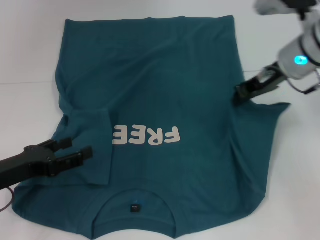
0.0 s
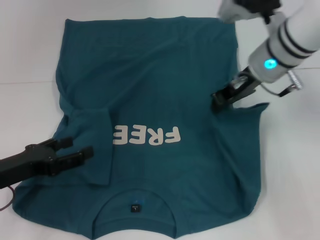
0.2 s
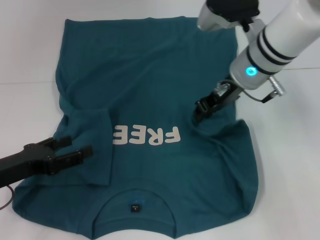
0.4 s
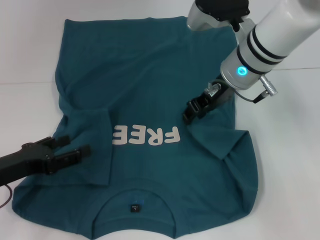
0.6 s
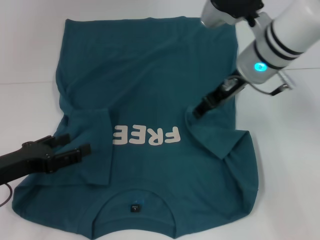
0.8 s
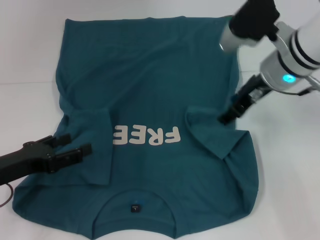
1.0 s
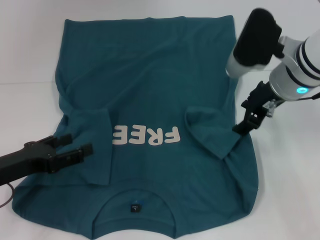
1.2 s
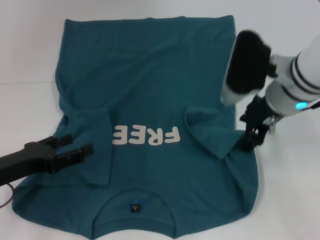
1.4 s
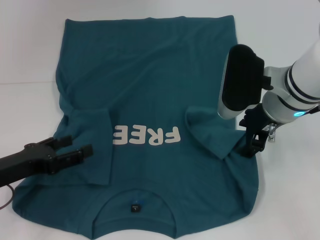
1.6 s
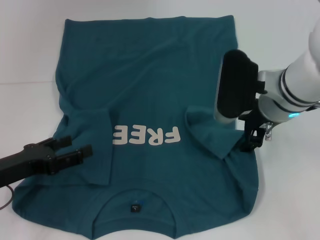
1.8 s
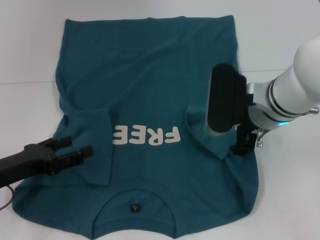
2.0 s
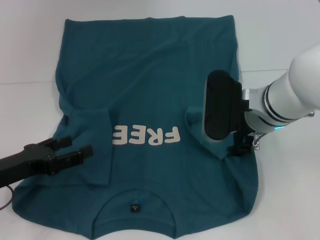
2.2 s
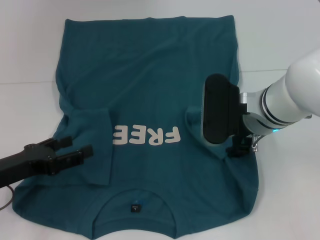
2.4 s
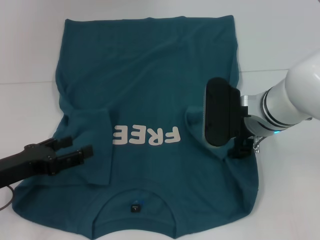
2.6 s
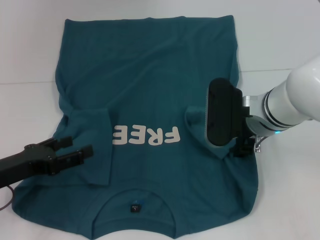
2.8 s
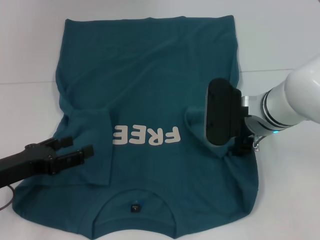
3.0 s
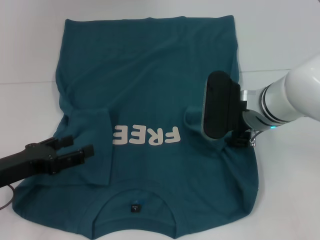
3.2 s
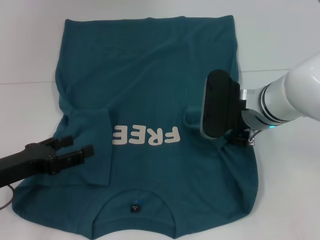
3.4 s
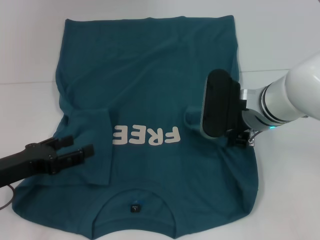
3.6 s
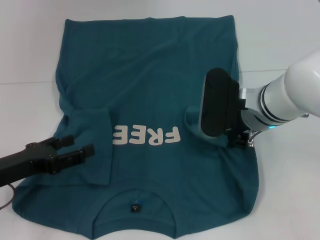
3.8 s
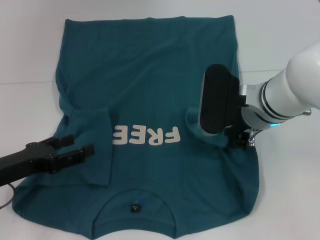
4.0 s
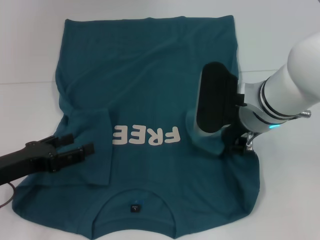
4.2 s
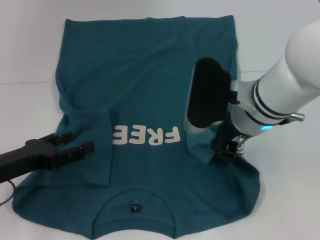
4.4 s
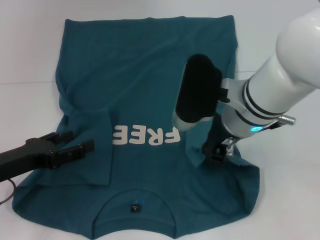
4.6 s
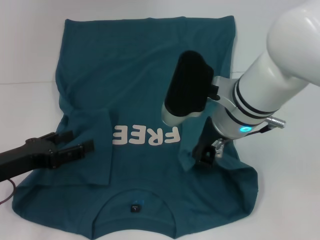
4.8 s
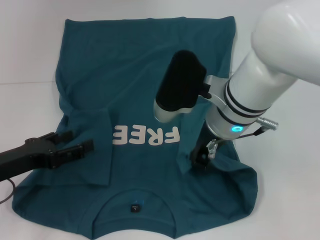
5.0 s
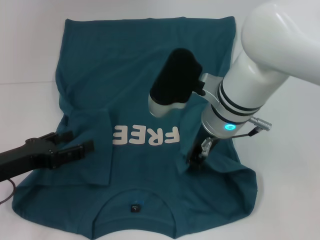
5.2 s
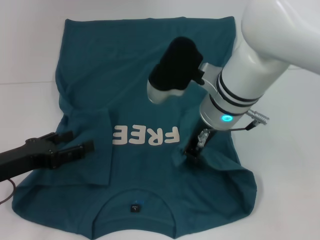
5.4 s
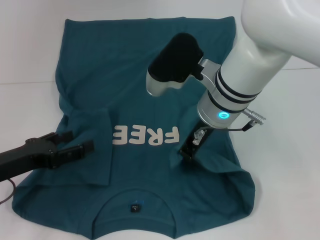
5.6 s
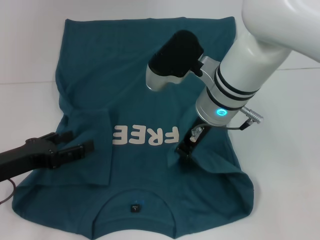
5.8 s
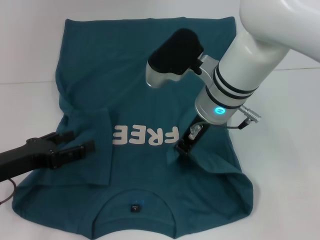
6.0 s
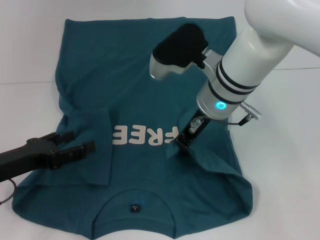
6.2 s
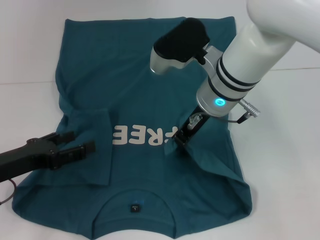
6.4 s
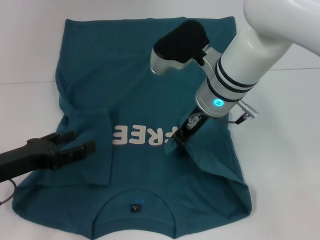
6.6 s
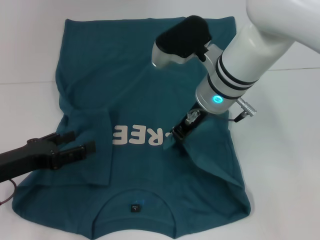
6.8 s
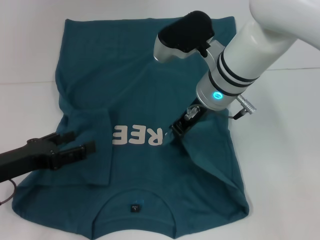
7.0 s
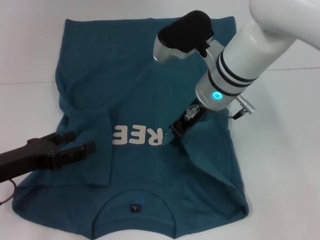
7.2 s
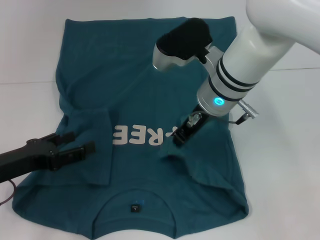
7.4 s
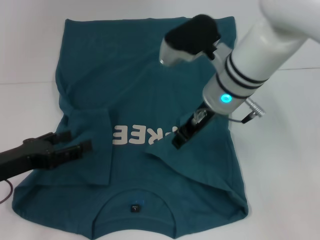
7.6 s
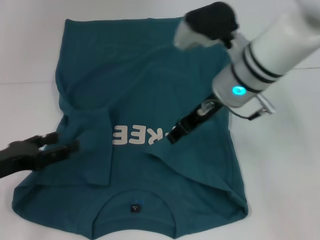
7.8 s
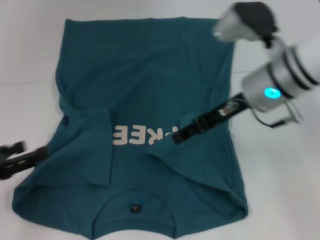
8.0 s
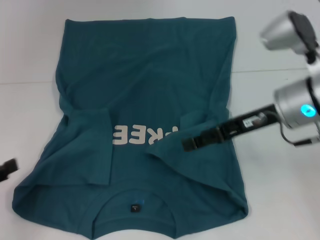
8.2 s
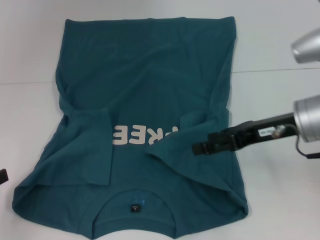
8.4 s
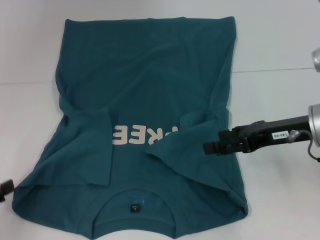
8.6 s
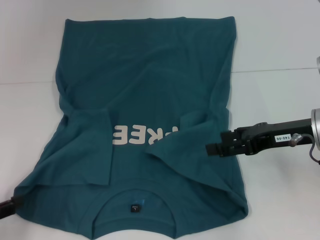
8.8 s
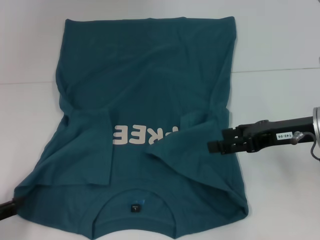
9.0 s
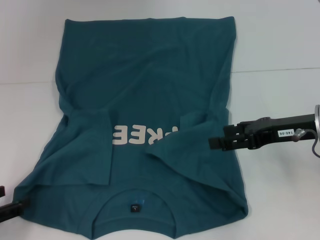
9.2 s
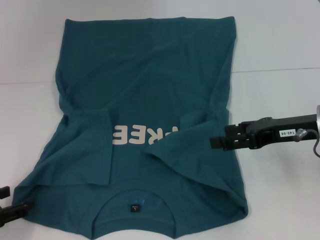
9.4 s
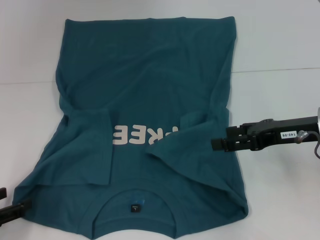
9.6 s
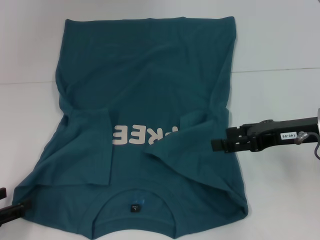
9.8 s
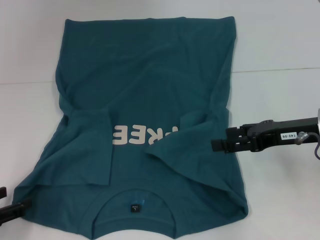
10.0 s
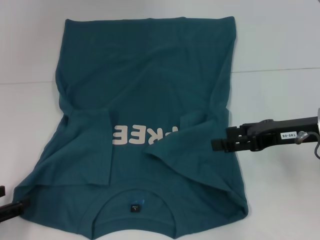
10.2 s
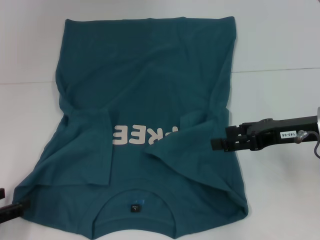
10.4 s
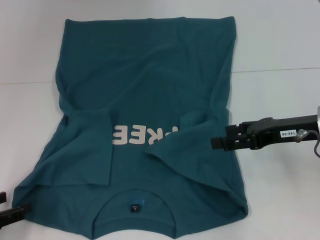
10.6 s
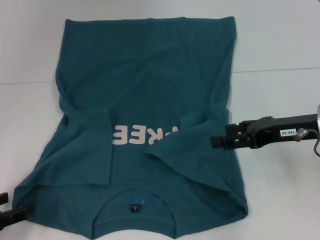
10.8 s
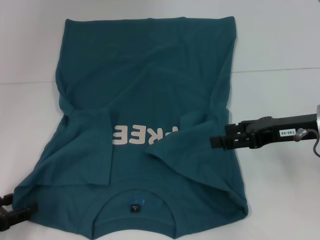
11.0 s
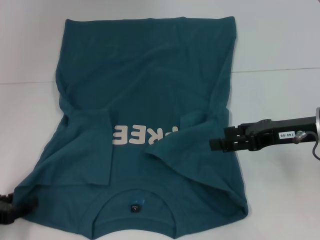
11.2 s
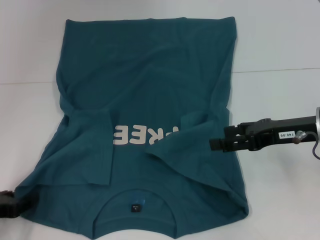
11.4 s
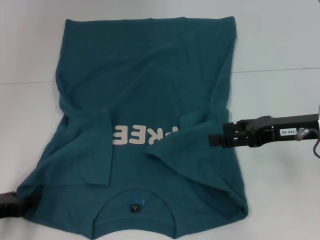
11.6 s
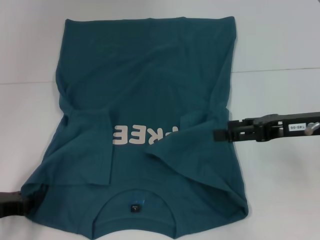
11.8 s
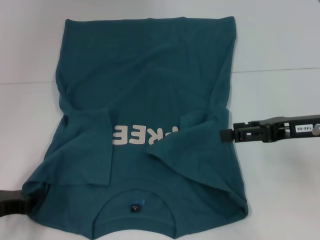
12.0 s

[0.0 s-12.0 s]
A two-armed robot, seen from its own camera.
Step, 0.0 to 7.6 s: Fold the bottom right sleeve to the right.
0.0 to 1.6 s: The right gripper moves backward and to the left, some 10 cm, and opens its fingers.
1.6 to 3.0 s: The grippers stay close to where they were, moving slightly.
3.0 to 4.4 s: The right gripper shifts by about 5 cm, and closes.
4.4 to 6.0 s: The right gripper shifts by approximately 5 cm.
6.0 to 7.6 s: The grippers make only small movements.
7.6 to 9.0 s: The left gripper is displaced backward and to the left by about 10 cm. The right gripper heads to the right and backward, covering roughly 15 cm, and opens up.
9.0 to 10.4 s: There are only small adjustments of the grippers.
10.4 to 12.0 s: The left gripper ends up approximately 5 cm from where it was, and closes up.

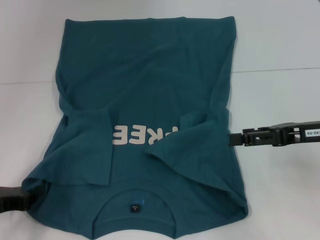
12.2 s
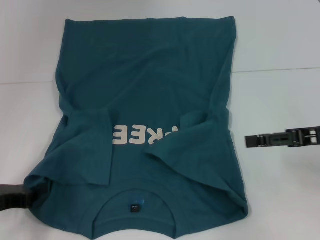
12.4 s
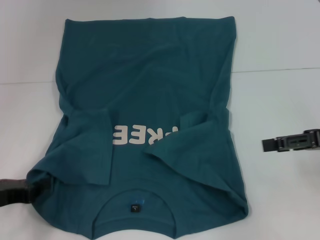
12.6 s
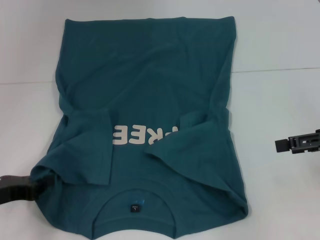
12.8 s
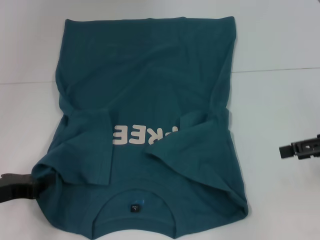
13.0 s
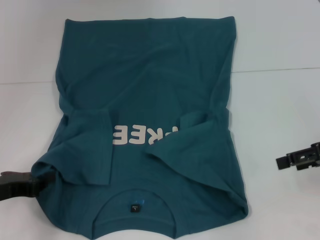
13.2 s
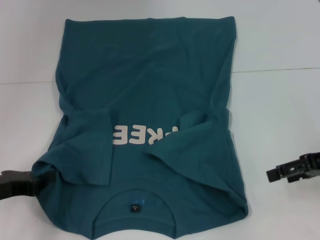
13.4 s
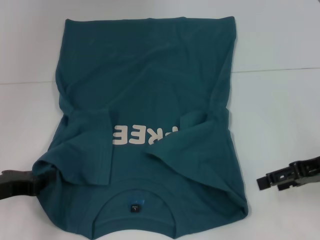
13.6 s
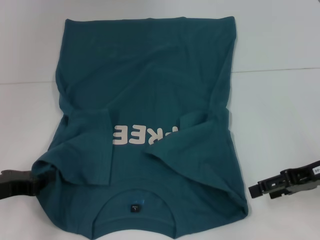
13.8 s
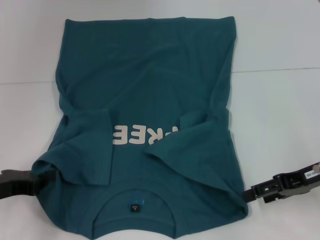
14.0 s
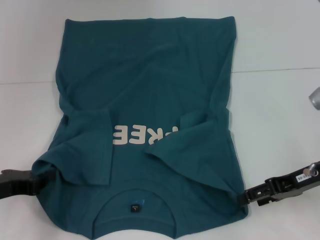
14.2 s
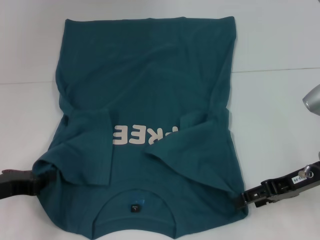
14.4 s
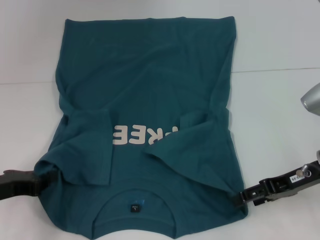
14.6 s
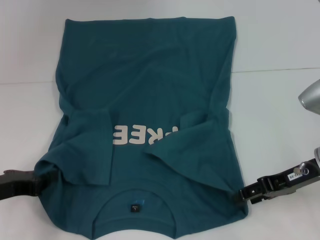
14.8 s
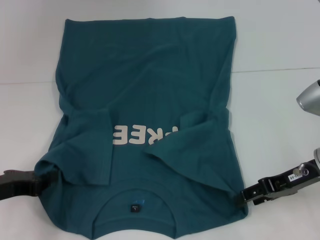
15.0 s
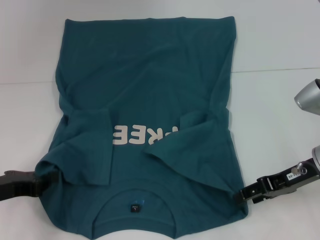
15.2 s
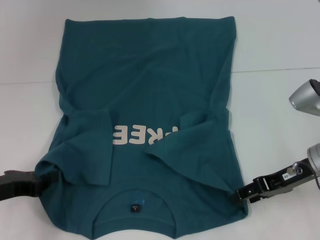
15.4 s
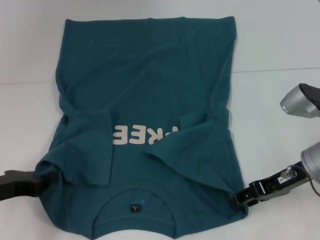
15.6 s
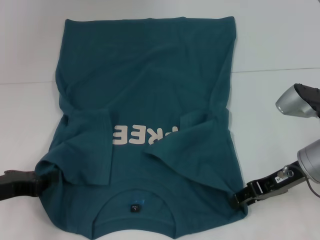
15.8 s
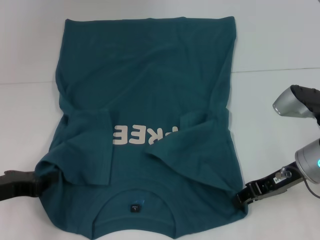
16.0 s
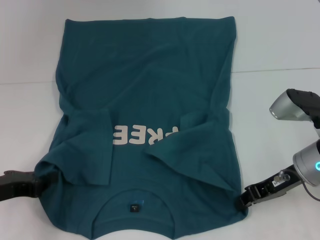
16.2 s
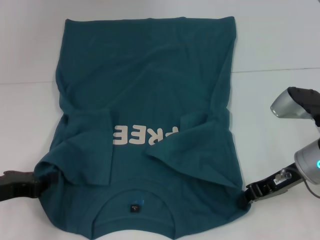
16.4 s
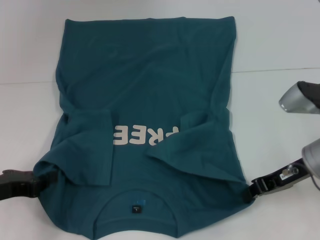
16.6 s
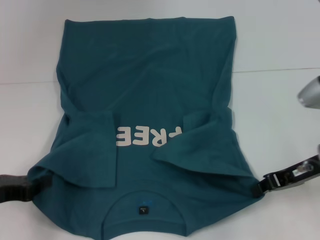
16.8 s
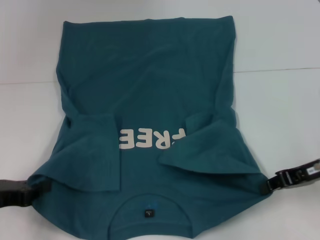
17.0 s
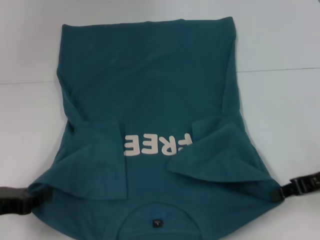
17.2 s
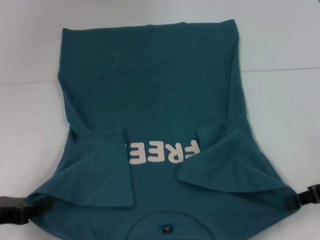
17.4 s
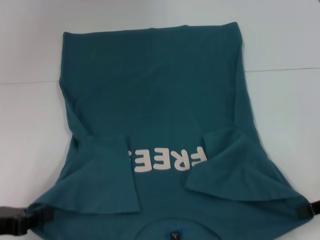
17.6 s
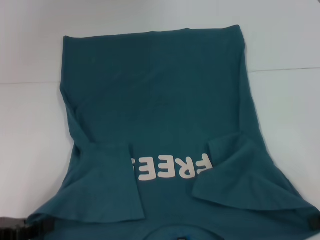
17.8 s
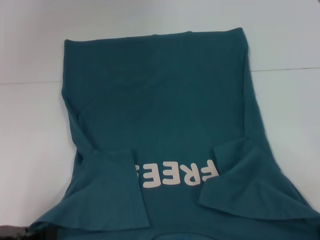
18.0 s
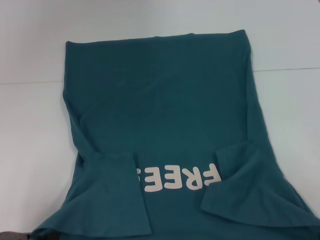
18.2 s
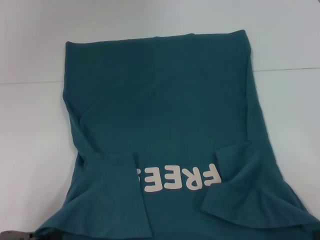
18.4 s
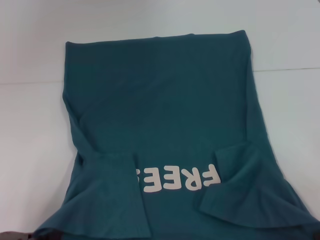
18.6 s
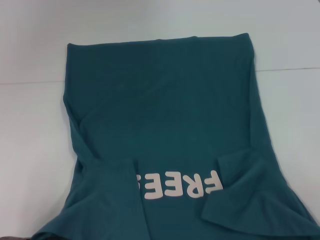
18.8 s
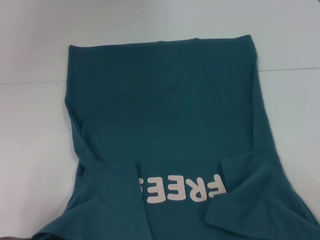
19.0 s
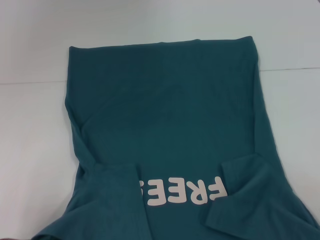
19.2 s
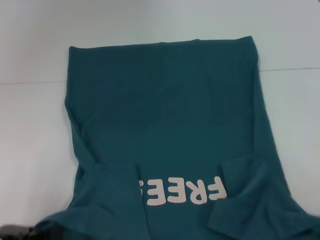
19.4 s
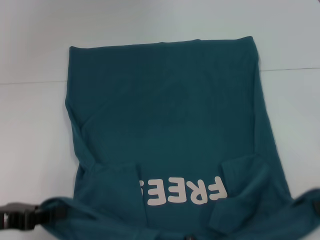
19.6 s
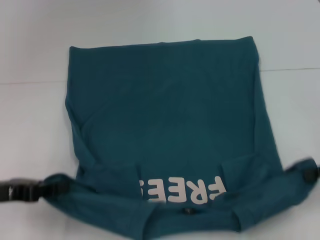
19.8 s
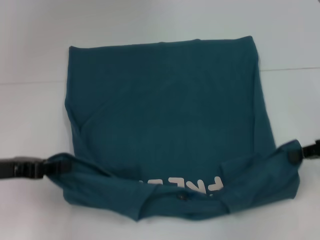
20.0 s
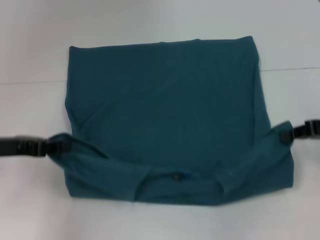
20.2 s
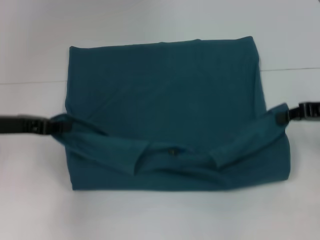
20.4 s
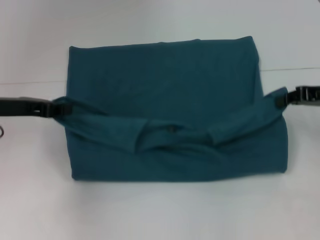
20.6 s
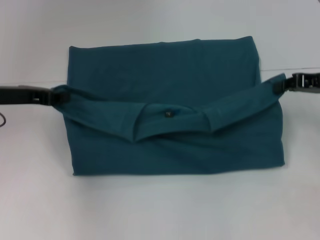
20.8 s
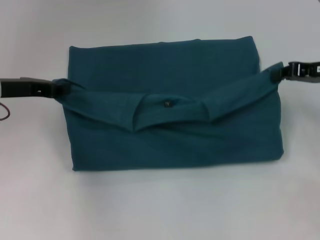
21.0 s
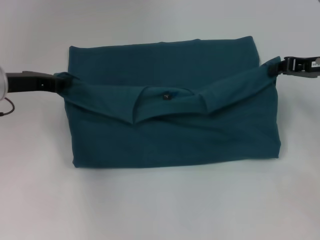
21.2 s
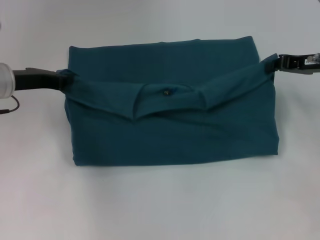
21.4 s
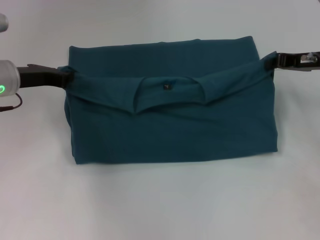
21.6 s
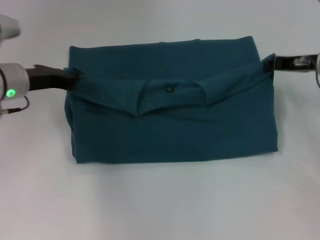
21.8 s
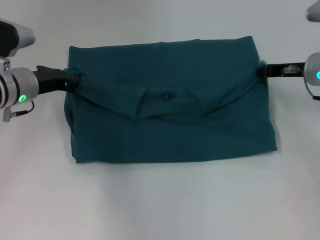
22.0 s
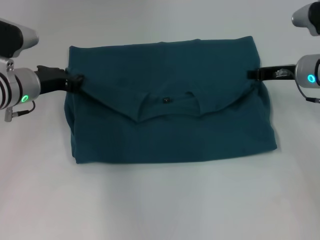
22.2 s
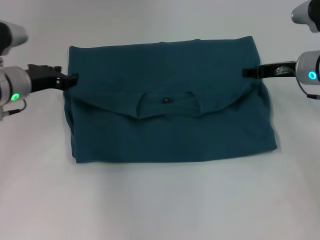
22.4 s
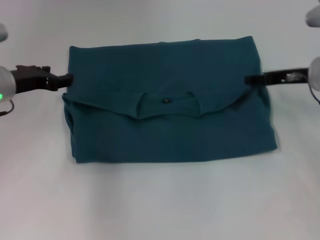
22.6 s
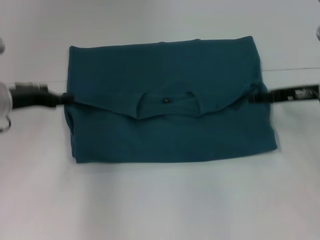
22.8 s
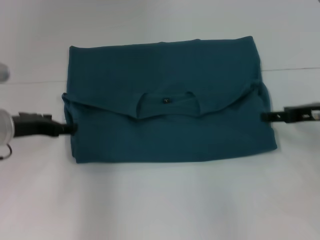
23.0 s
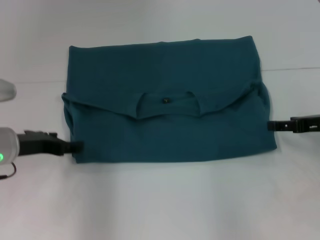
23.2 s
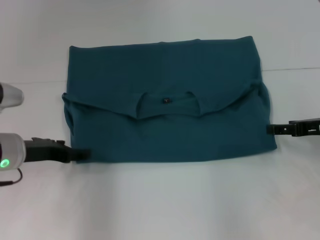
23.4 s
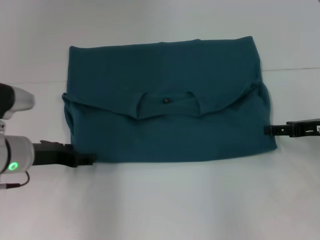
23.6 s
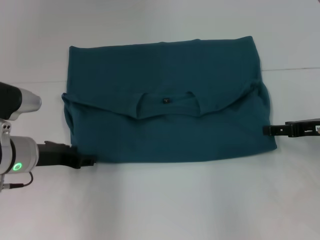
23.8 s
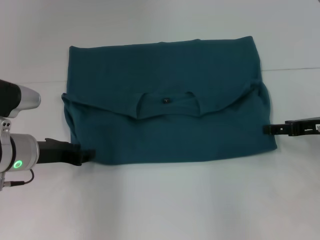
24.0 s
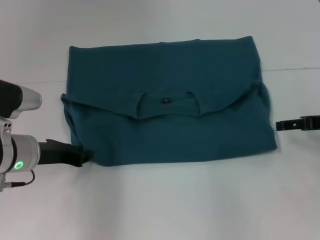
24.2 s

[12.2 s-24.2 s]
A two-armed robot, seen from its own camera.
Step, 12.2 to 16.0 s: Grab the bottom right corner with your right hand.
Step, 16.2 to 22.4 s: Fold the clothes to the left.
Step, 16.2 to 22.4 s: Fold the clothes to the right.
13.8 to 15.2 s: There are only small adjustments of the grippers.
15.2 to 16.6 s: The right gripper closes up.
16.6 to 18.2 s: The left gripper goes some 5 cm backward. The right gripper travels to the right and backward by some 15 cm.
18.2 to 19.8 s: The two grippers go some 5 cm forward.
19.8 to 21.2 s: The two grippers go roughly 15 cm forward.
21.2 to 22.6 s: The right gripper opens.
22.6 to 24.2 s: The left gripper shifts roughly 10 cm backward and downward, and opens, then closes once more. The right gripper moves backward and to the right, roughly 10 cm.
